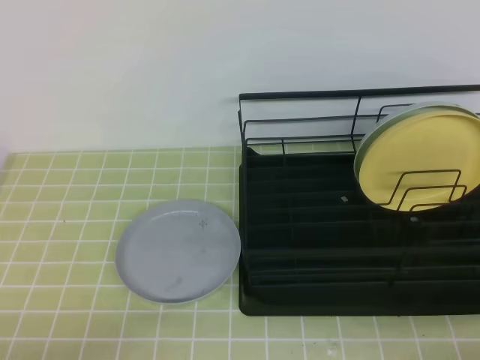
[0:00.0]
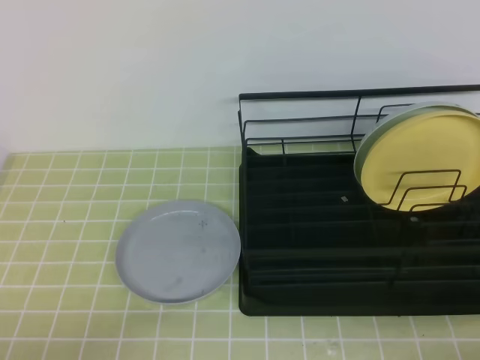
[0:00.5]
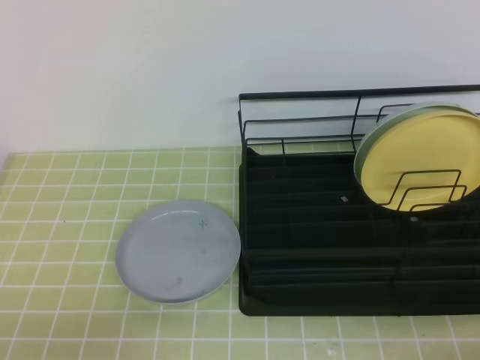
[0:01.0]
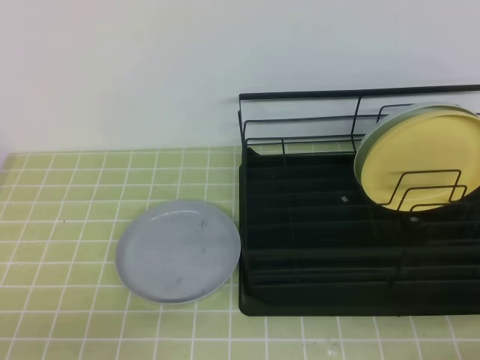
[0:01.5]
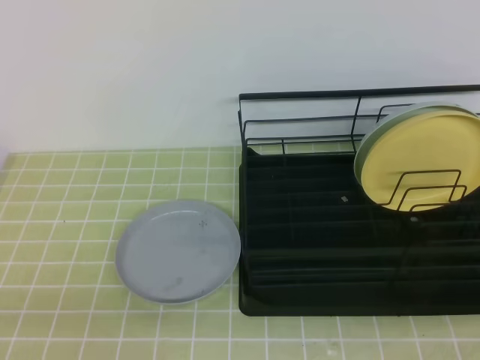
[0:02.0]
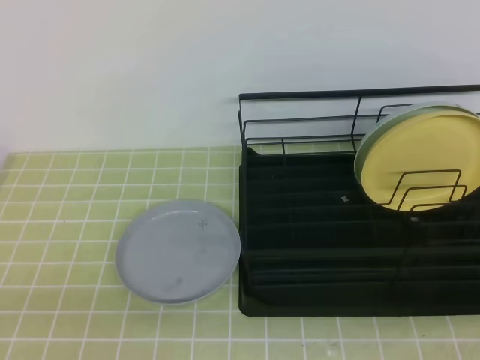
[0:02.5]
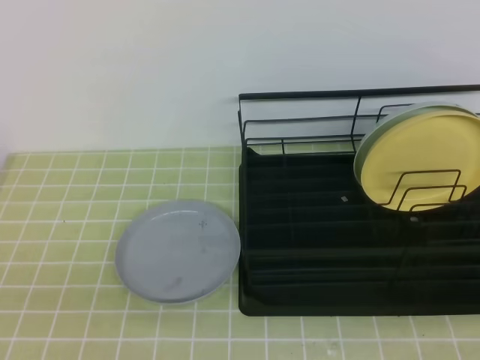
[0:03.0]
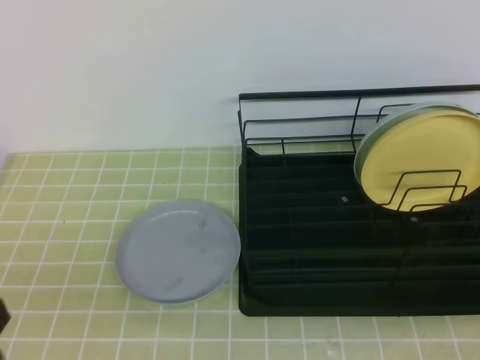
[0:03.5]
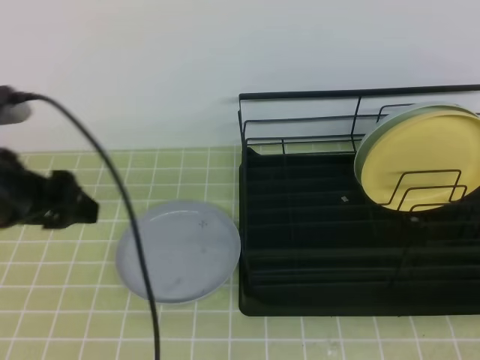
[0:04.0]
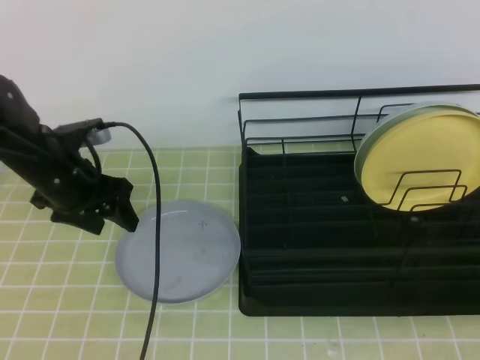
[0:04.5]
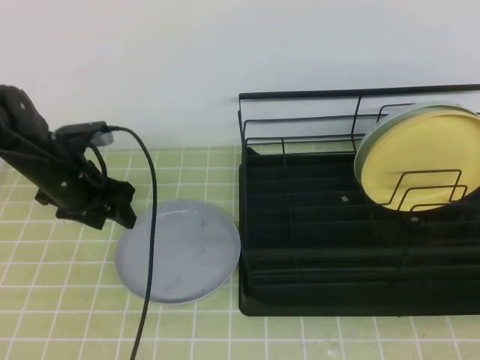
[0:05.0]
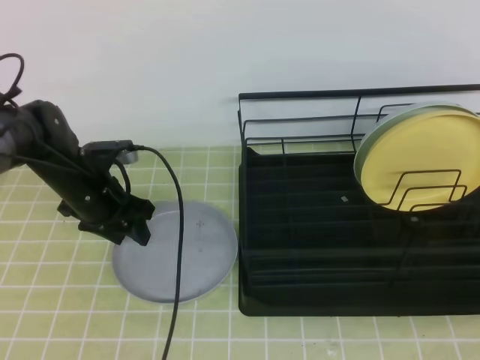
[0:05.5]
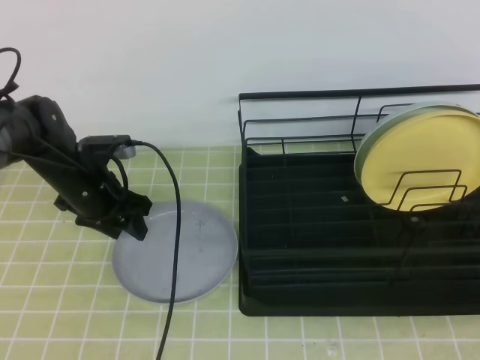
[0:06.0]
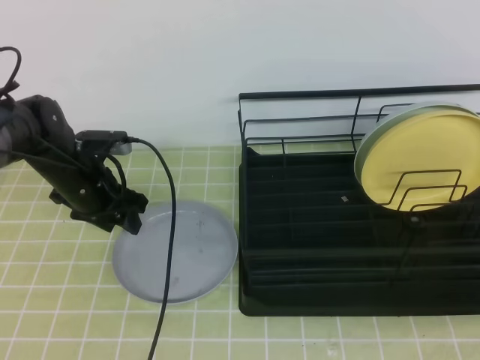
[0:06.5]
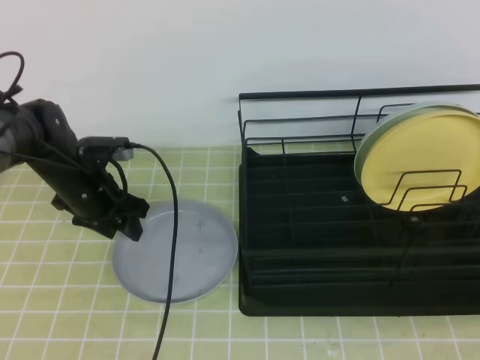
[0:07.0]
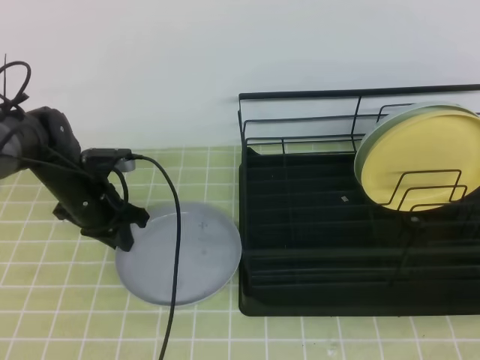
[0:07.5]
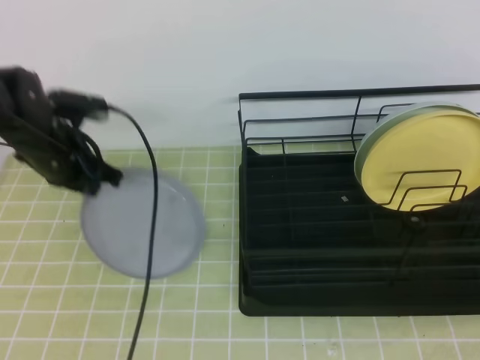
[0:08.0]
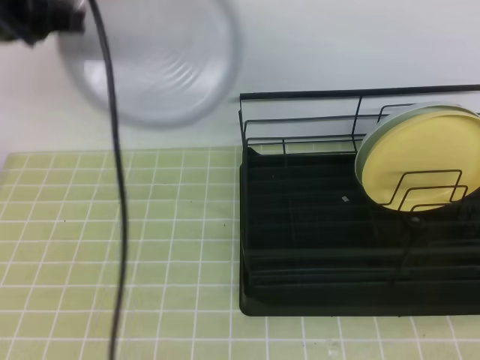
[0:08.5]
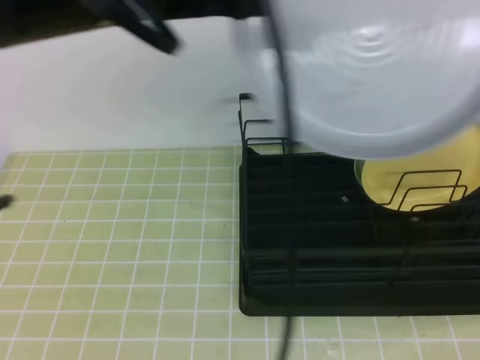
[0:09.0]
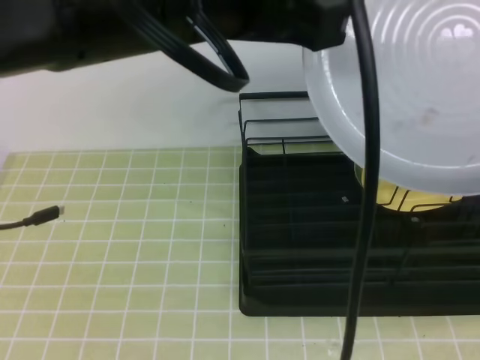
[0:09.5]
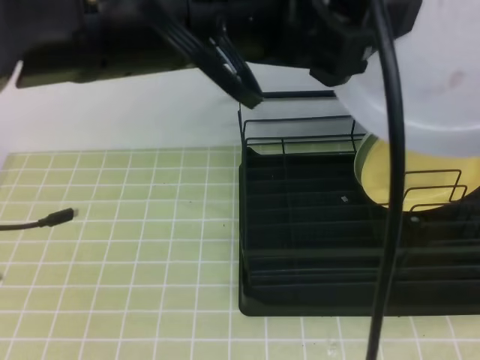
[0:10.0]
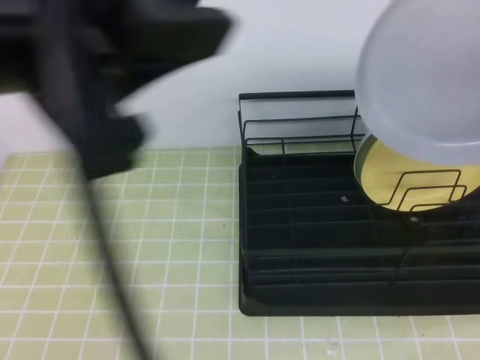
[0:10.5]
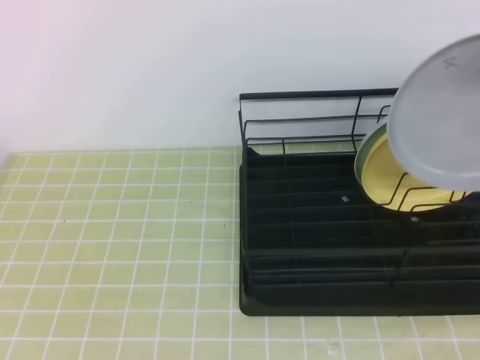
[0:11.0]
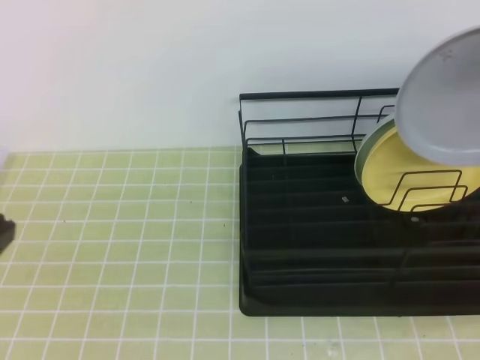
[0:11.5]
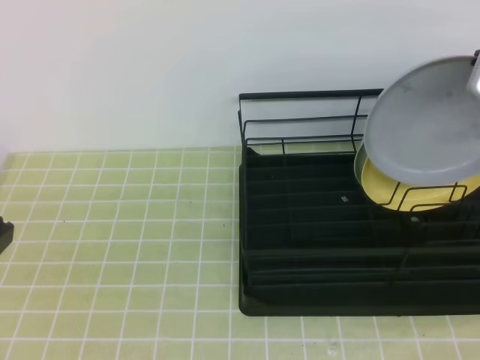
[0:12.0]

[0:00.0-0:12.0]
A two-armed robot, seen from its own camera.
0:02.0 to 0:04.0: The left gripper travels forward and upward by approximately 20 cm, and opens up.
0:04.0 to 0:06.0: The left gripper heads forward and downward, covering about 25 cm.
0:06.0 to 0:08.0: The left gripper closes its fingers.
0:08.0 to 0:10.0: The left gripper is displaced upward, backward and to the right by about 40 cm, and opens its fingers. The right gripper shifts approximately 15 cm upward, and opens and closes again.
0:10.0 to 0:12.0: The left gripper moves to the left, downward and backward, roughly 25 cm, and closes; the right gripper goes roughly 20 cm forward.

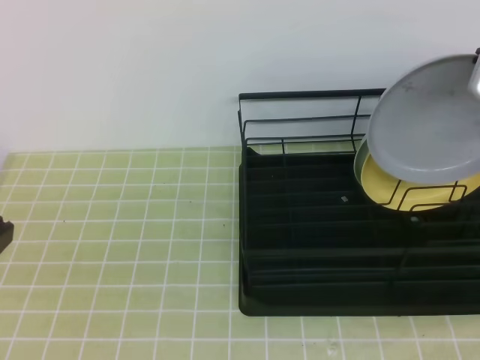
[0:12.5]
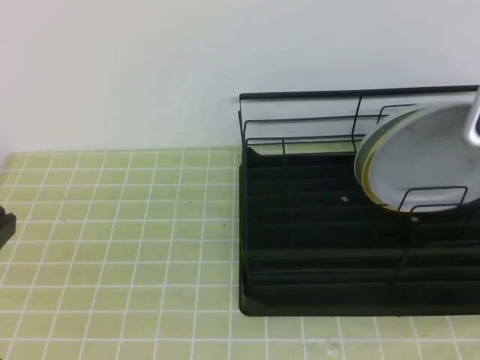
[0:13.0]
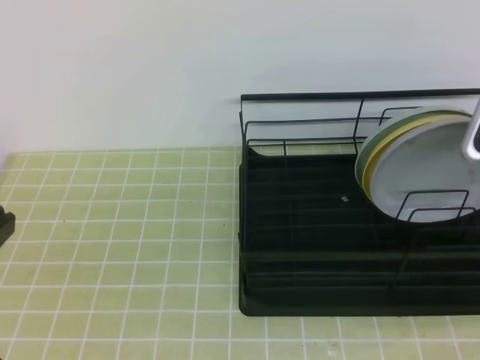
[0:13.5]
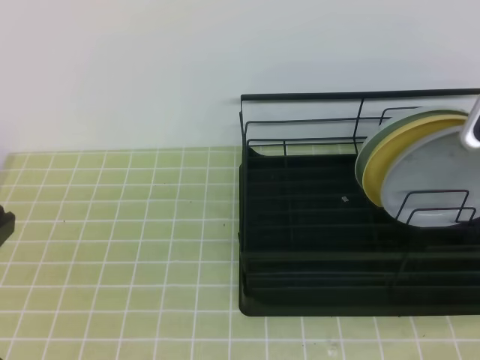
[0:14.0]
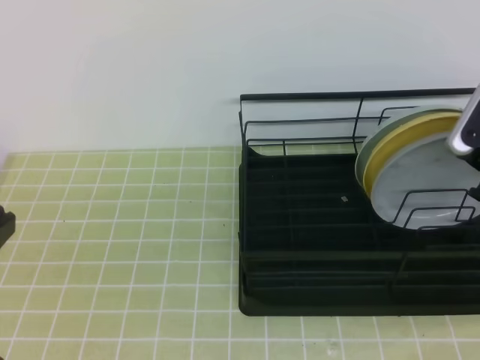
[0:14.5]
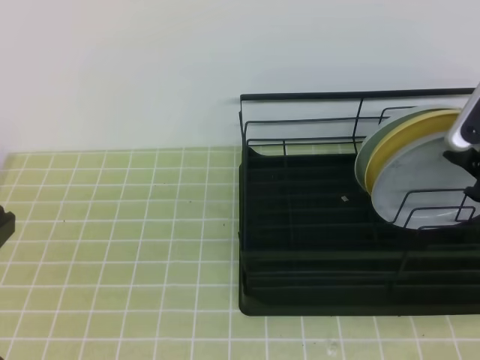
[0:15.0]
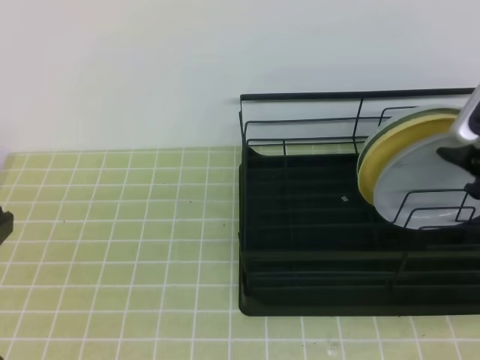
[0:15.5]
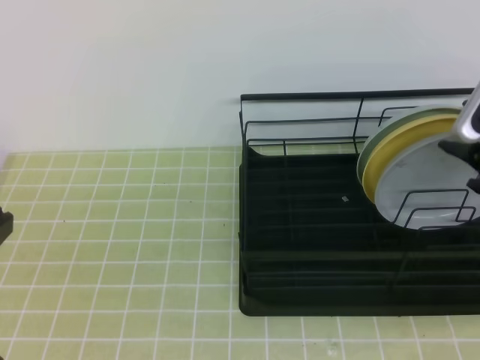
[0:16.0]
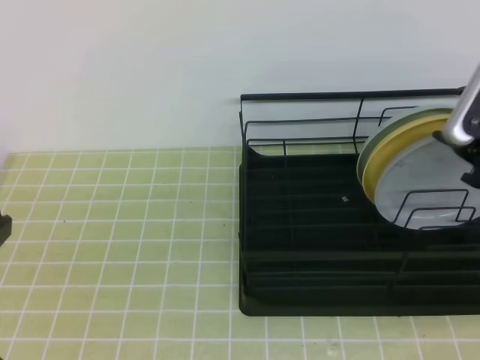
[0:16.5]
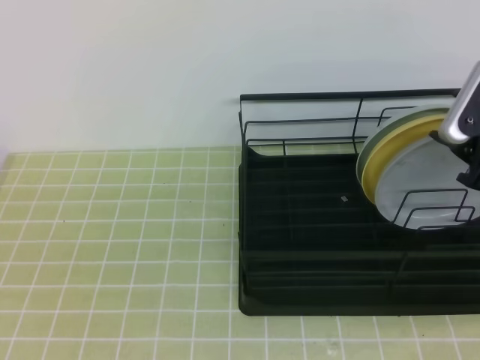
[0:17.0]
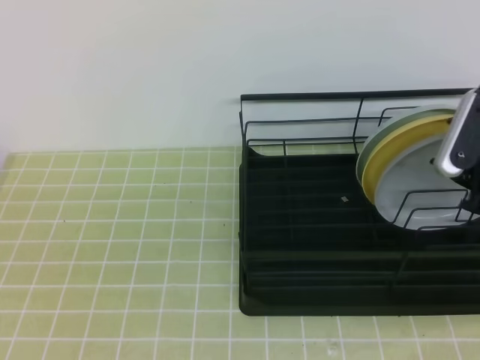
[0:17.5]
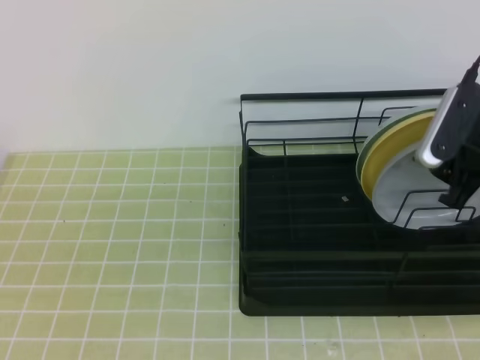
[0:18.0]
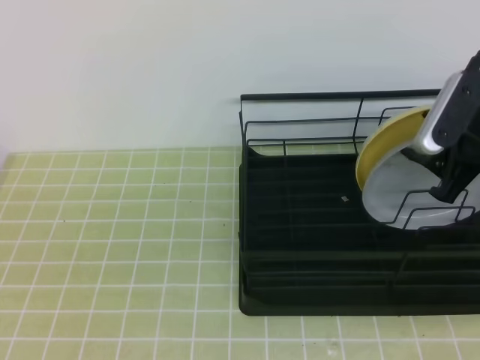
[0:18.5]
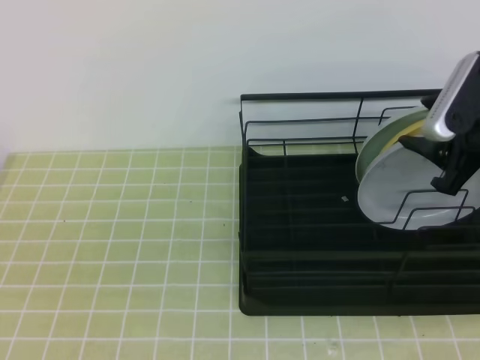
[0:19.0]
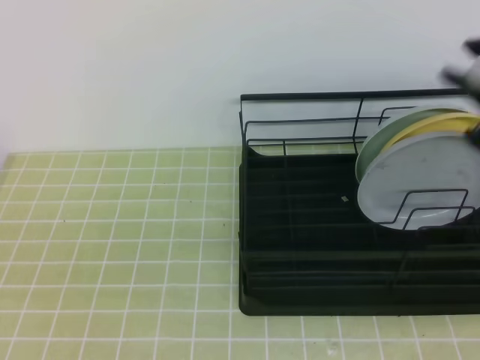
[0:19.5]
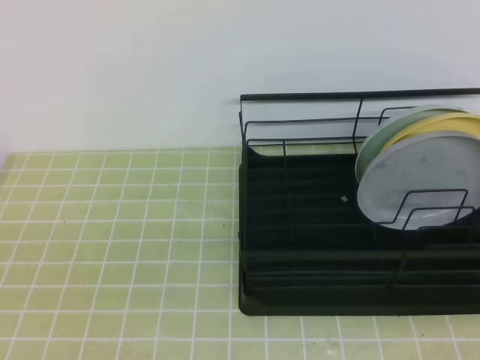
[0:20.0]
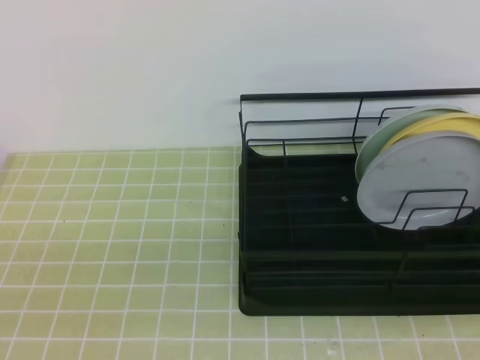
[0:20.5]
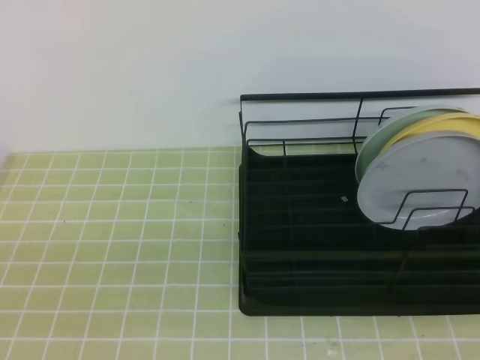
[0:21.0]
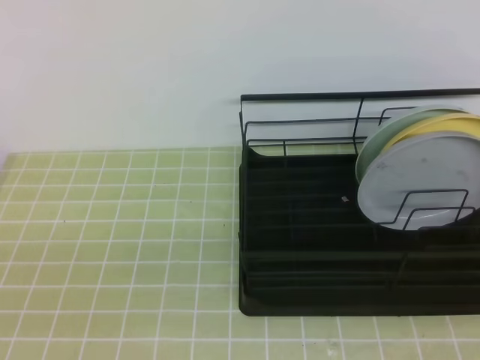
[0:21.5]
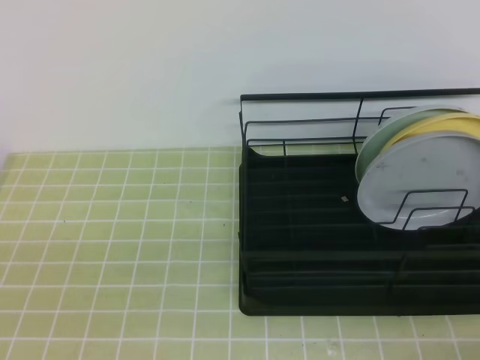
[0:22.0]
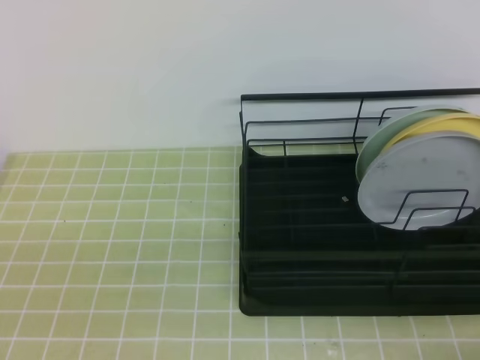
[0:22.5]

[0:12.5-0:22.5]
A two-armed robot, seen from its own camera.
0:12.5 to 0:14.5: The right gripper travels downward by some 10 cm, and opens.
0:14.5 to 0:18.5: The grippers move only a little.
0:18.5 to 0:20.5: The right gripper travels backward by about 25 cm, and closes up.
